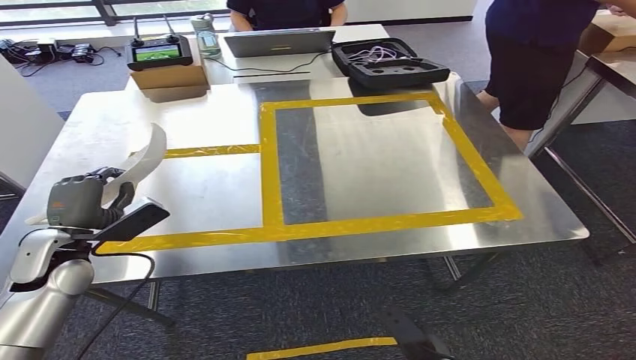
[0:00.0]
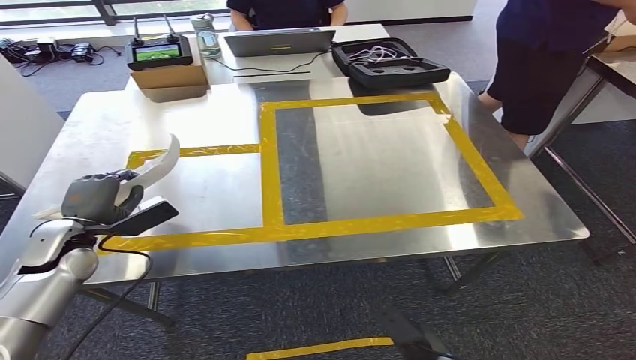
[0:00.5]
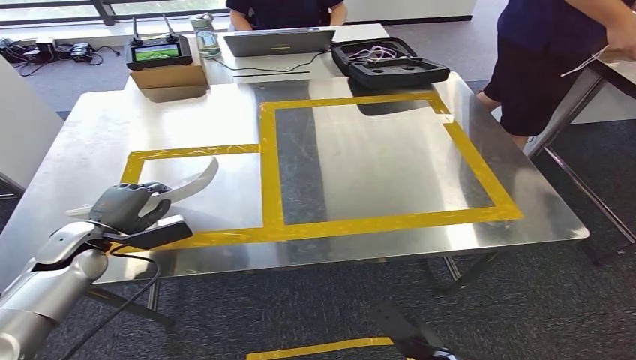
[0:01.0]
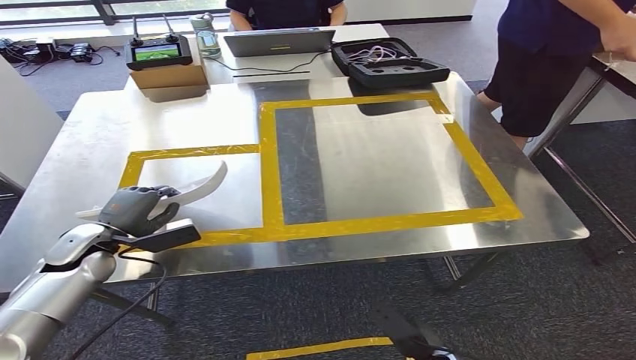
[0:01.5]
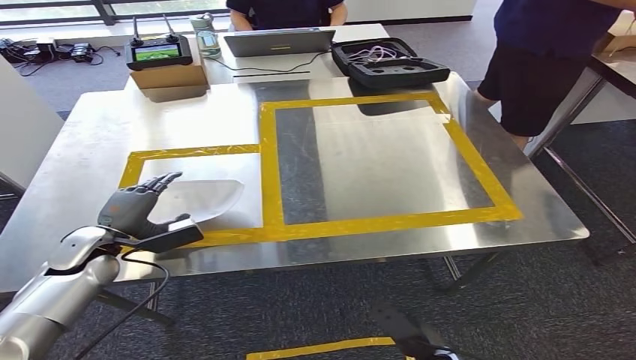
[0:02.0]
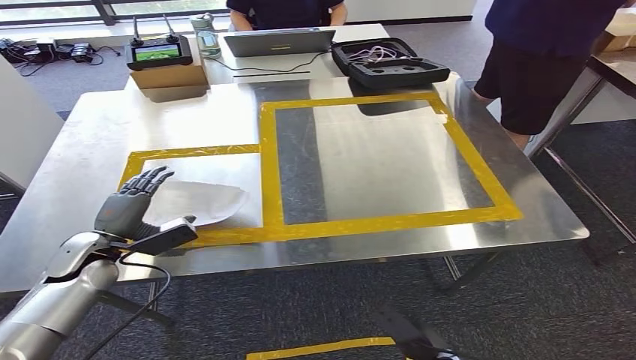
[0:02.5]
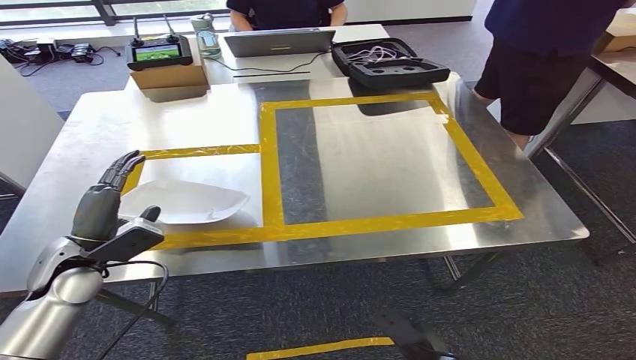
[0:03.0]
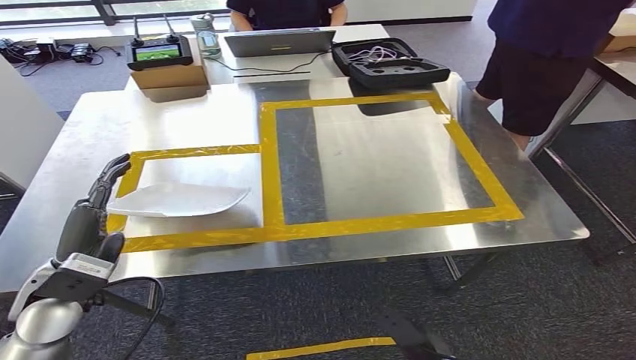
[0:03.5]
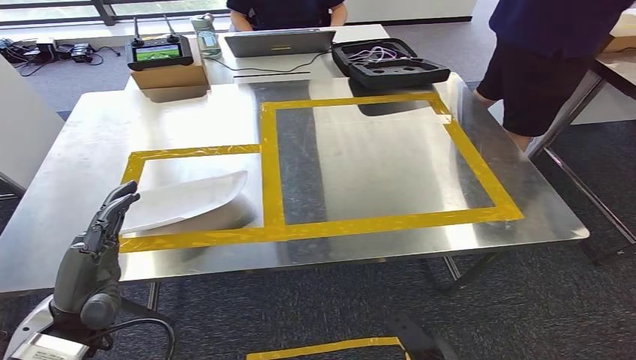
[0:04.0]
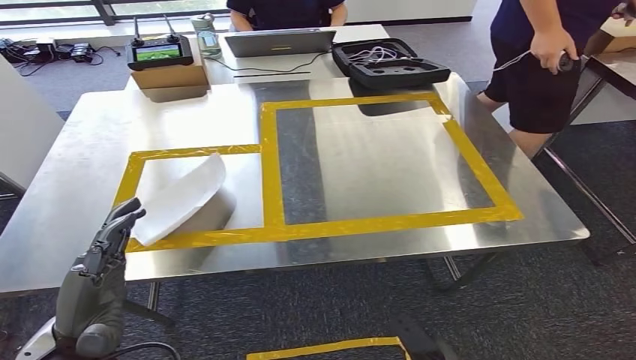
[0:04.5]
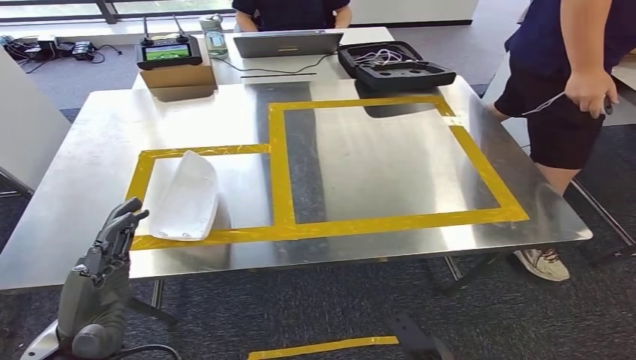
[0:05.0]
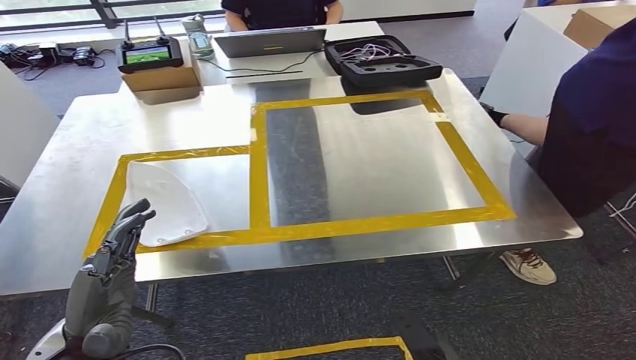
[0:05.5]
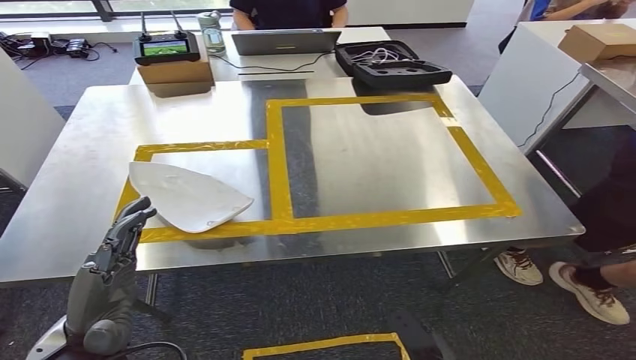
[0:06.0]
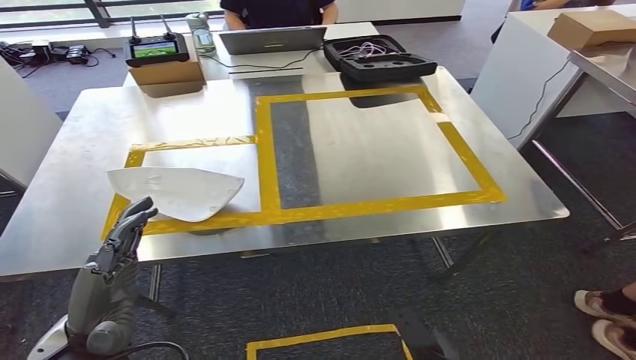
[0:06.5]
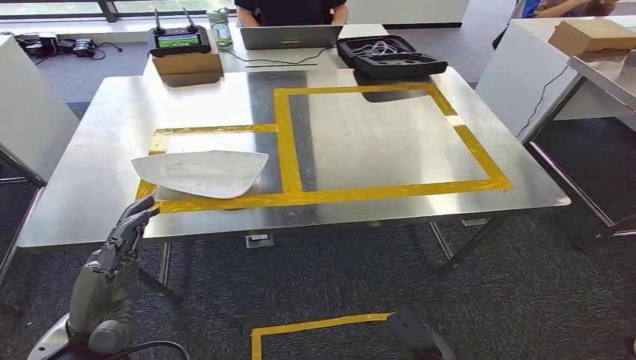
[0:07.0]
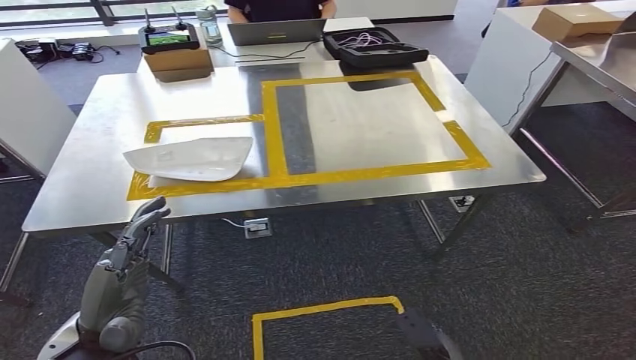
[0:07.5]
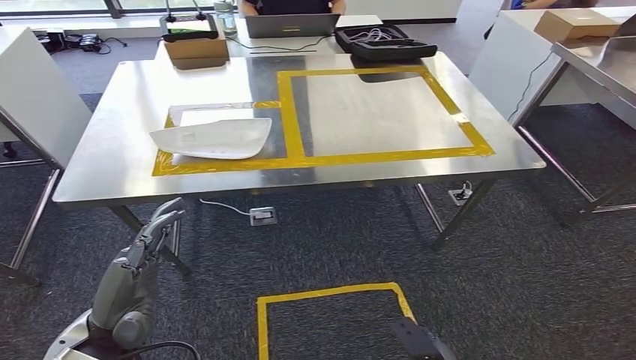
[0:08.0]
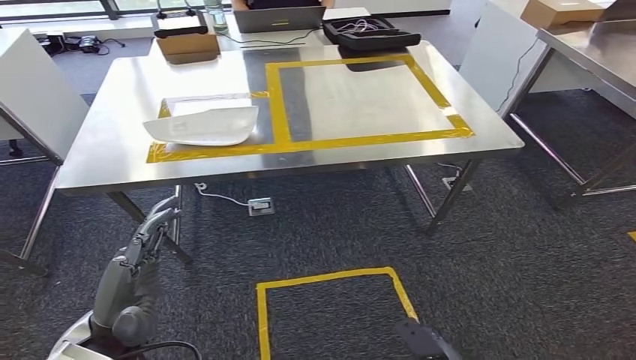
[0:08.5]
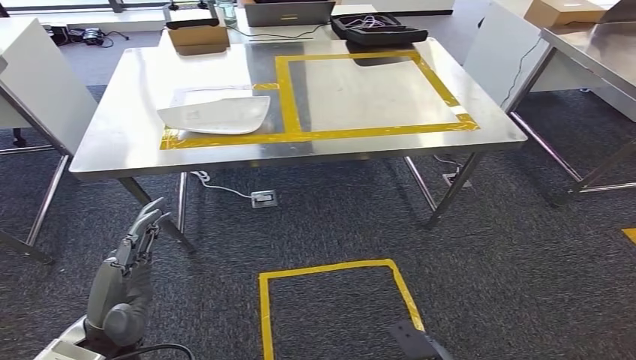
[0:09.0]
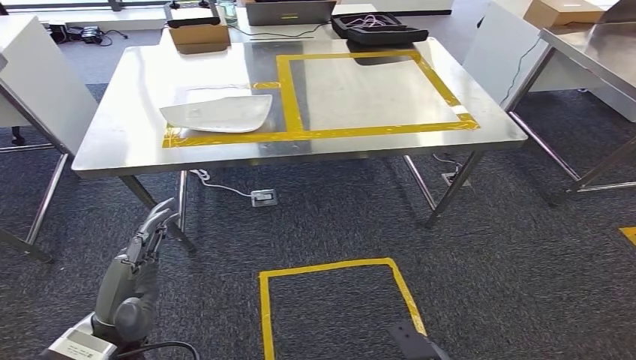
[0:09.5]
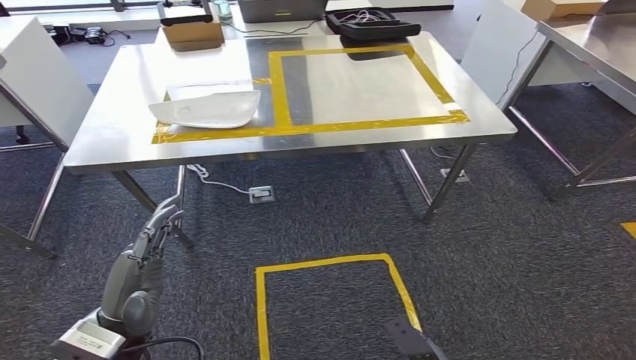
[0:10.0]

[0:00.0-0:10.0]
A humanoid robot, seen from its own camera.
Step, 0:00.0 to 0:07.5: Insert the small parts into the corresponding holes on the workbench.
0:02.0 to 0:04.0: The left hand moves backward, to the right and upward, some 20 cm.

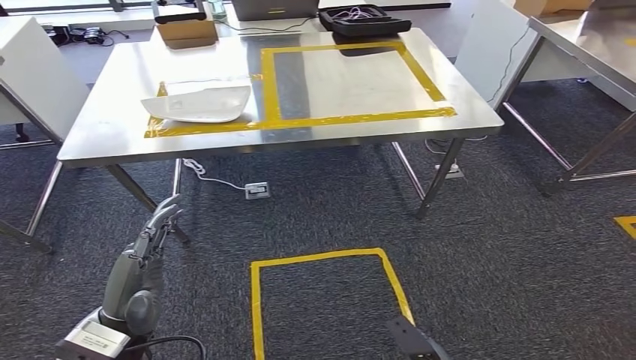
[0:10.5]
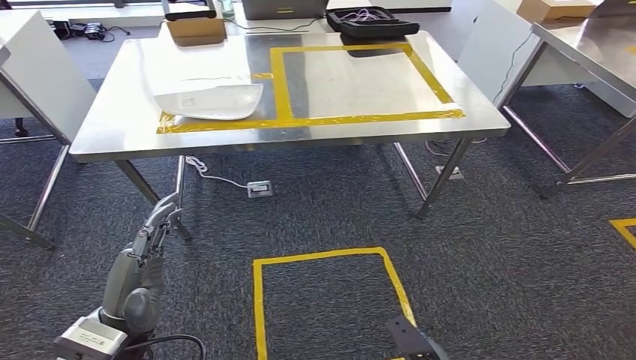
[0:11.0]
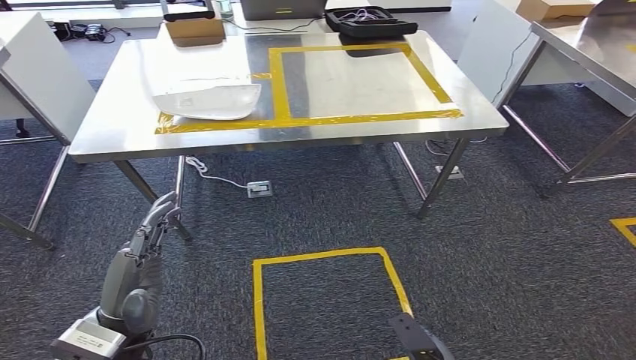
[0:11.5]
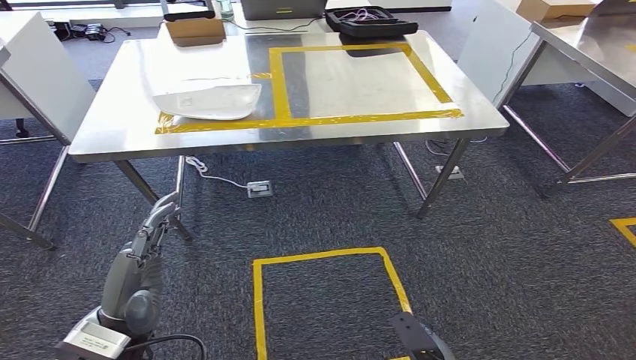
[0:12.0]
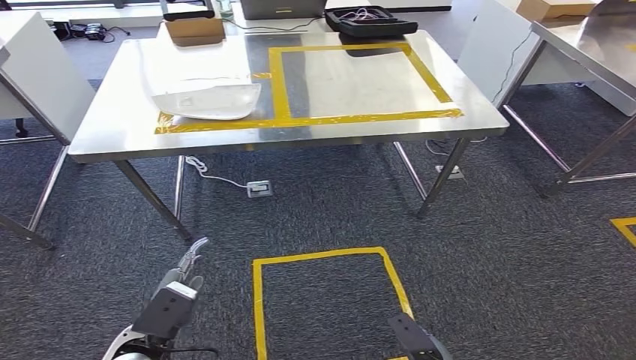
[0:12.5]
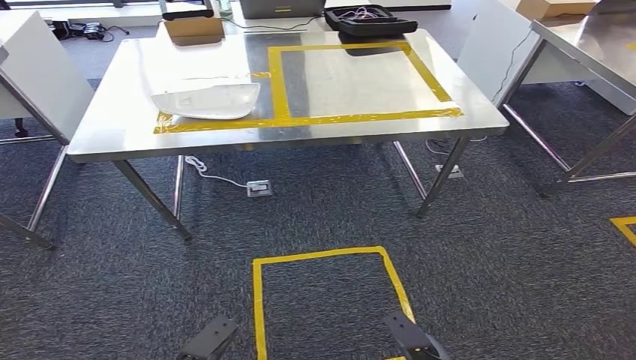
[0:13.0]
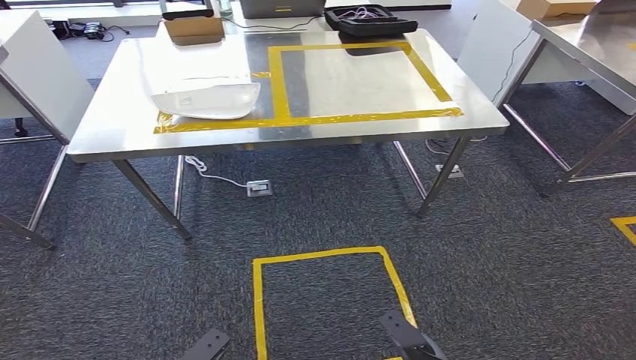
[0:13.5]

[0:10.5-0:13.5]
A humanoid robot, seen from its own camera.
Step, 0:10.5 to 0:13.5: Move to the initial position of the workbench.
0:10.5 to 0:12.0: Both hands stay about where they are.
0:12.0 to 0:13.5: The left hand heads downward and backward, covering approximately 25 cm.

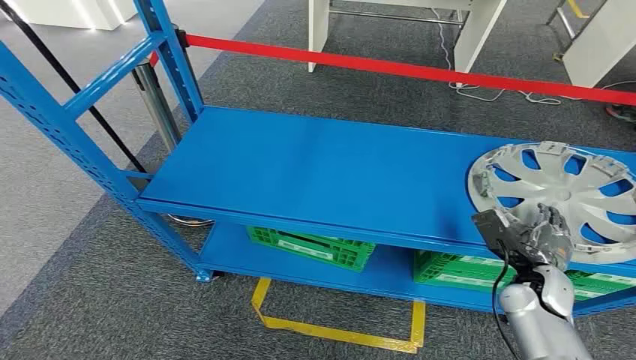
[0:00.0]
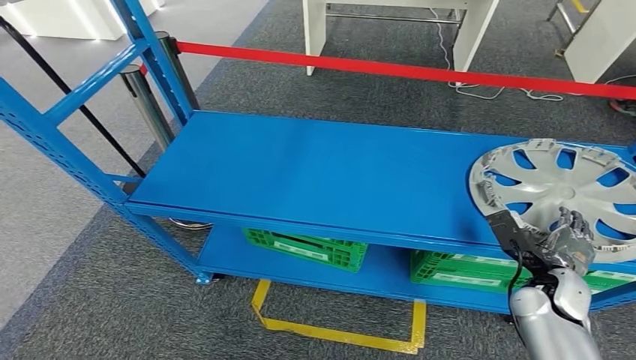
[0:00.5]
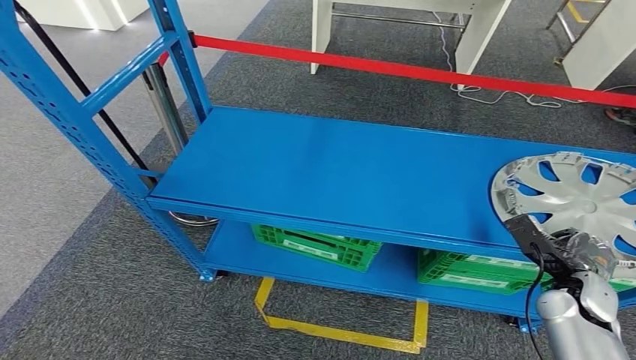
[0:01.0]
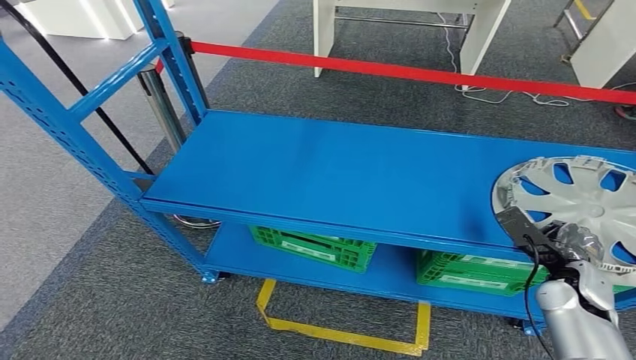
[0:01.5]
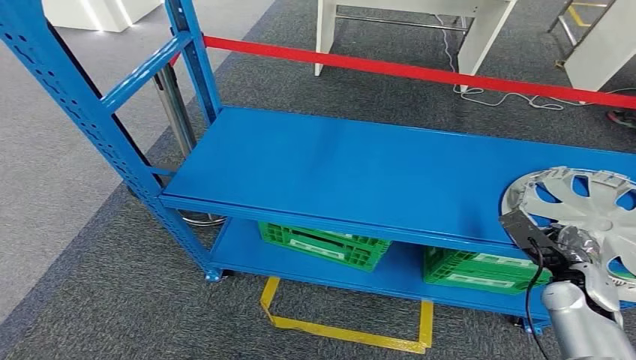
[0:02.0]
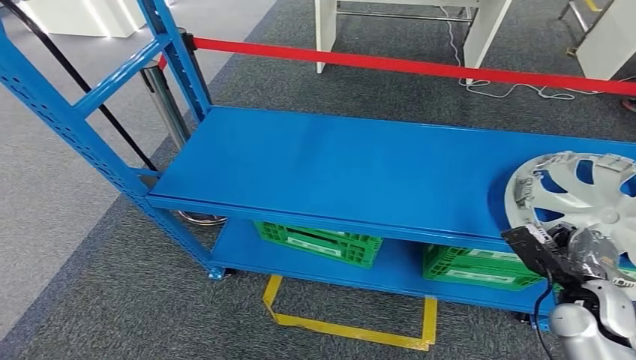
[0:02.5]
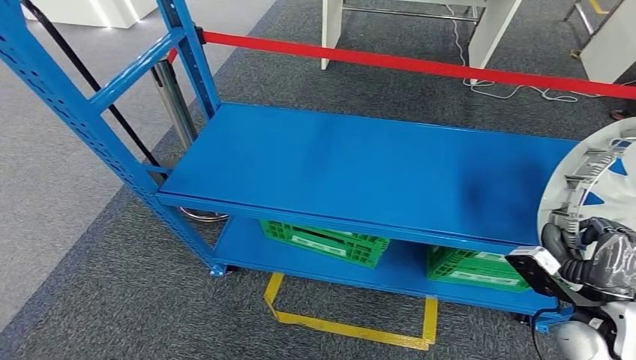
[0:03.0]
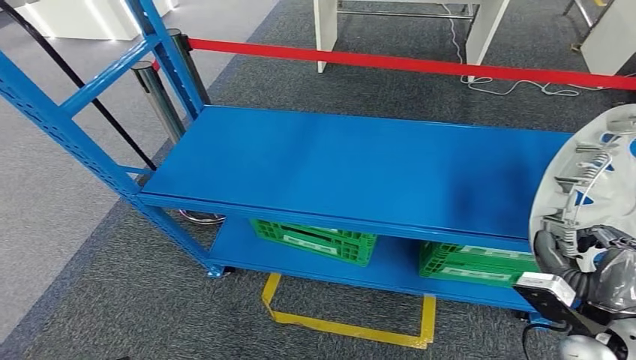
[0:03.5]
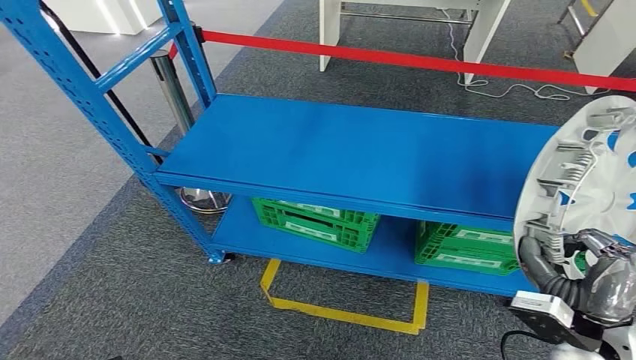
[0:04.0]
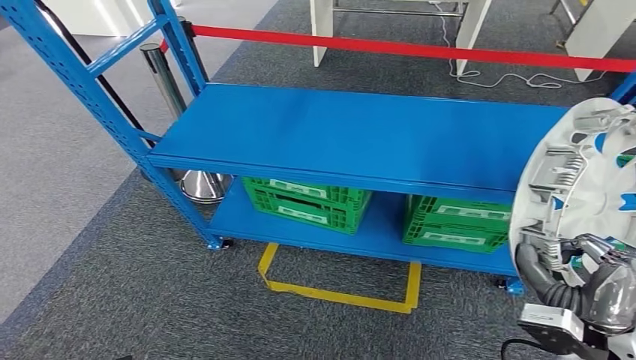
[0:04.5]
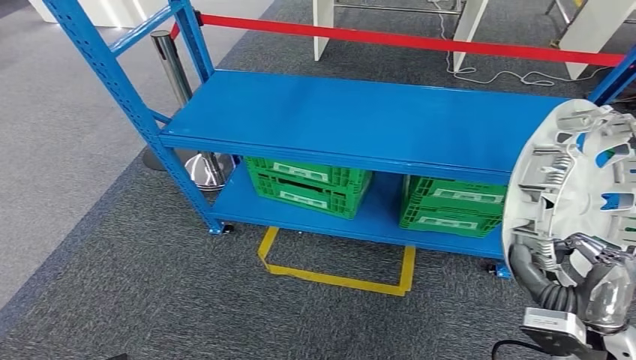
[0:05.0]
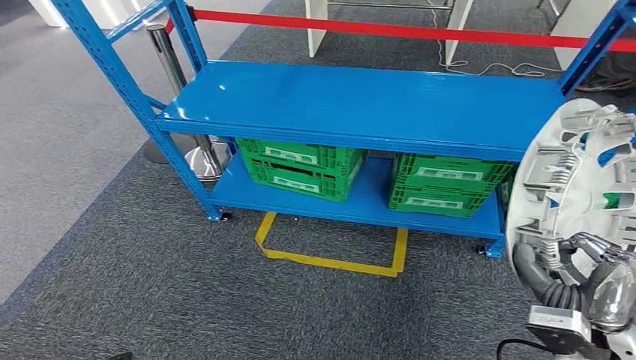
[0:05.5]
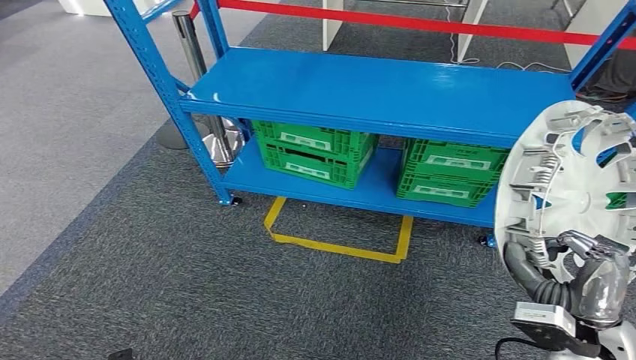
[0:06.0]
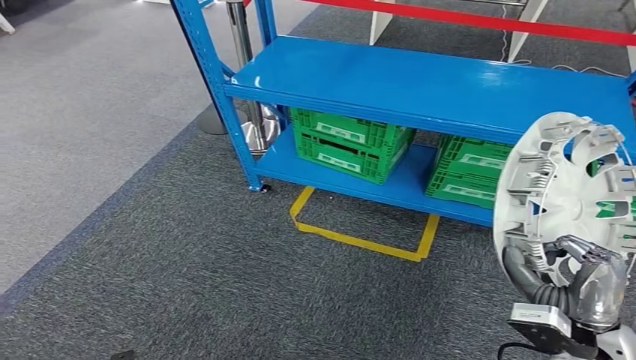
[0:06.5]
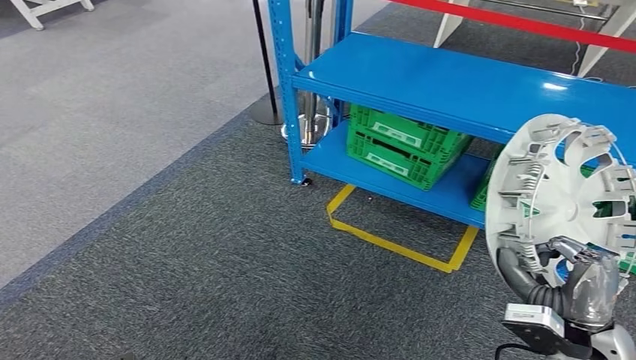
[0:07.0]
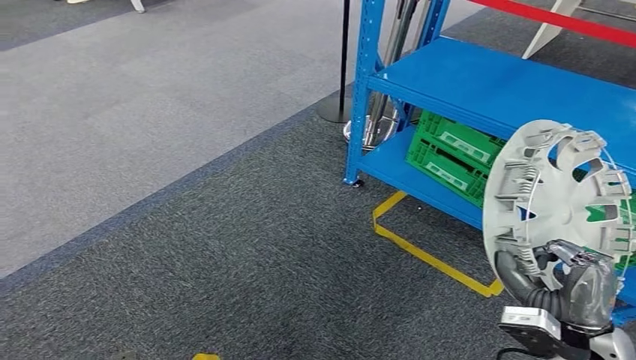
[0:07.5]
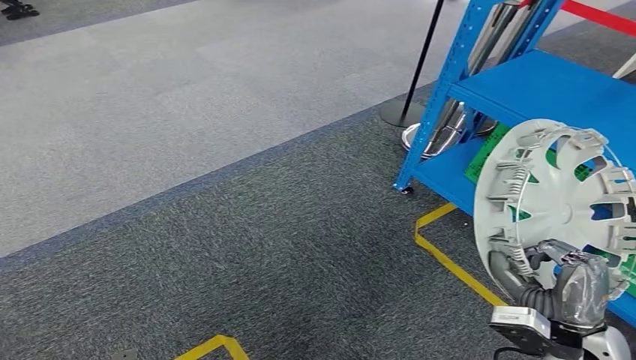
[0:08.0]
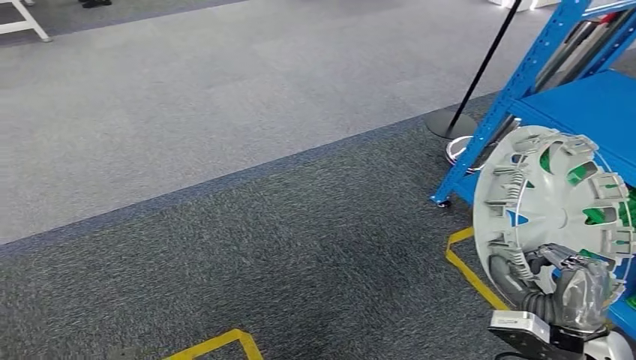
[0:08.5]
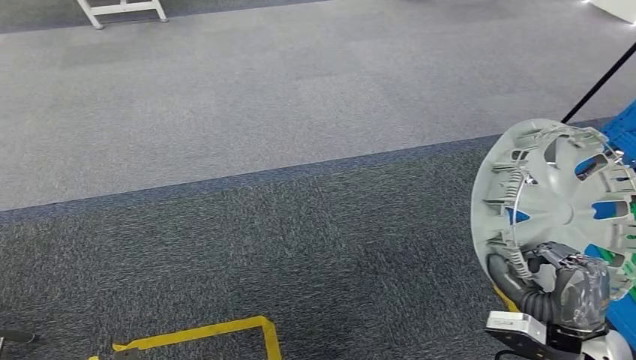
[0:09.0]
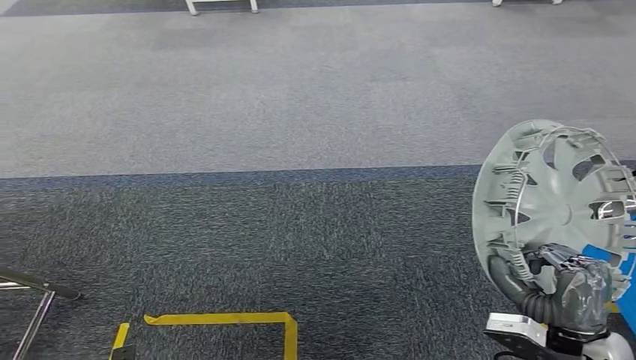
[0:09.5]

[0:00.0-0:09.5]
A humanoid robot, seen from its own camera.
Step, 0:00.0 to 0:06.5: Take small components from the rack.
